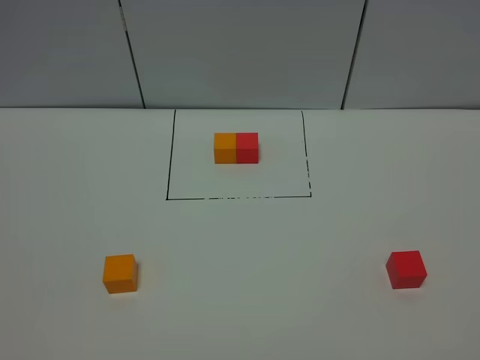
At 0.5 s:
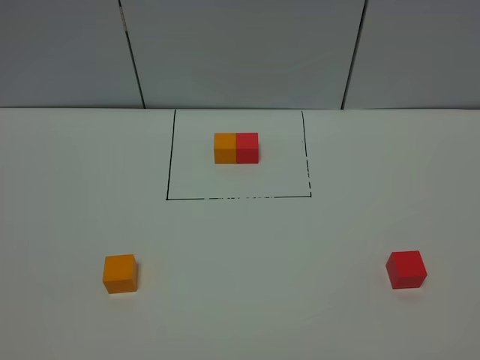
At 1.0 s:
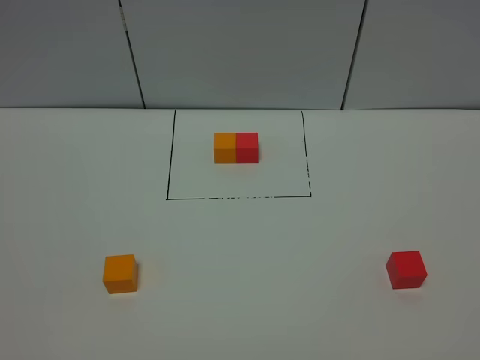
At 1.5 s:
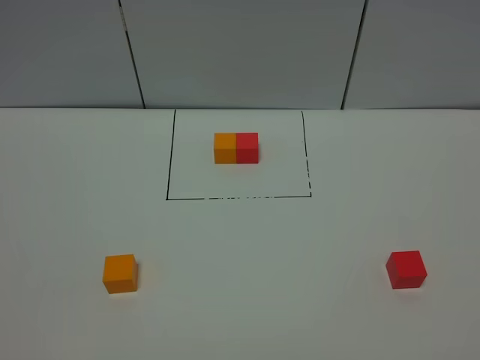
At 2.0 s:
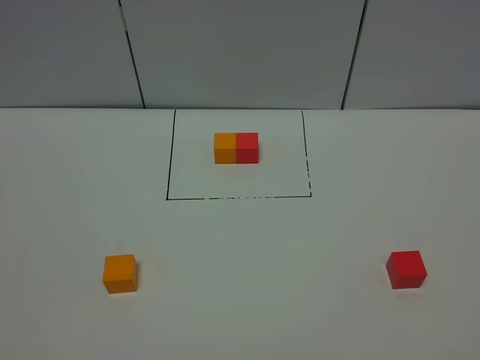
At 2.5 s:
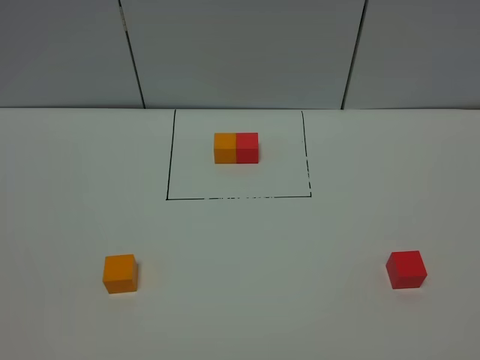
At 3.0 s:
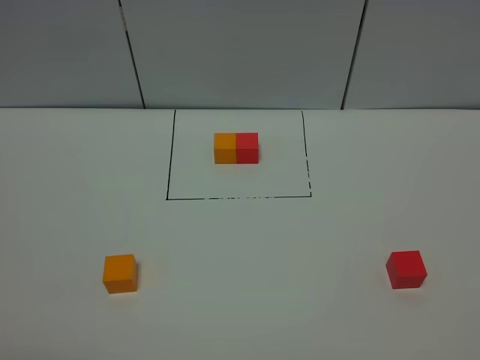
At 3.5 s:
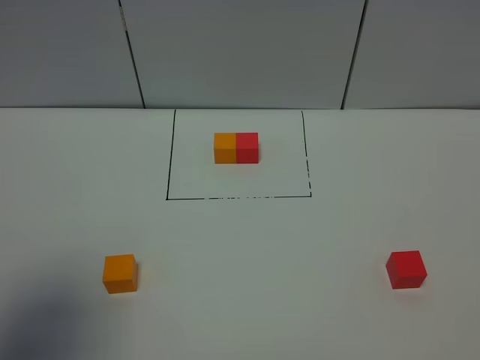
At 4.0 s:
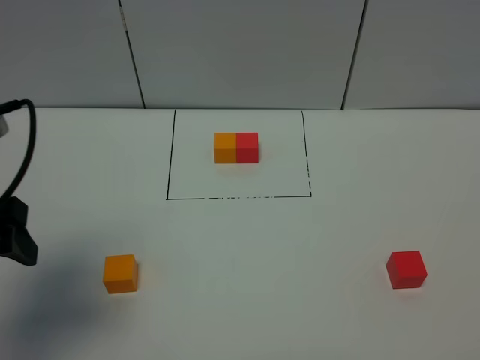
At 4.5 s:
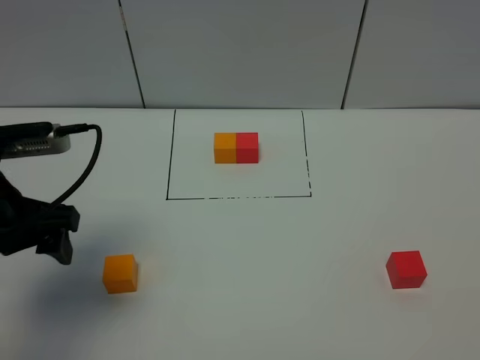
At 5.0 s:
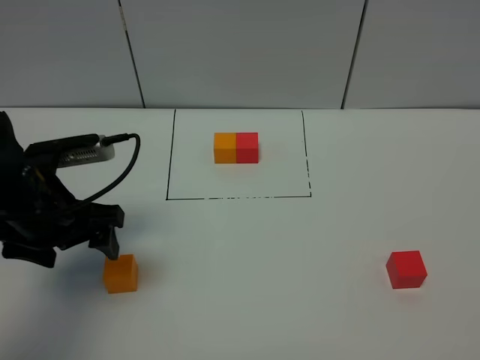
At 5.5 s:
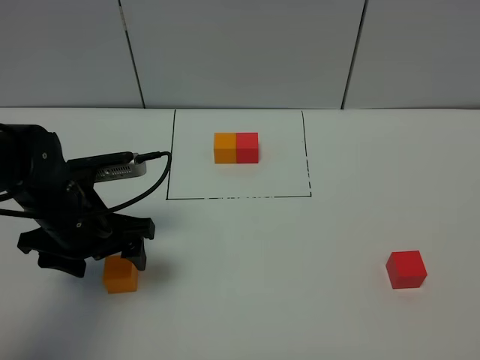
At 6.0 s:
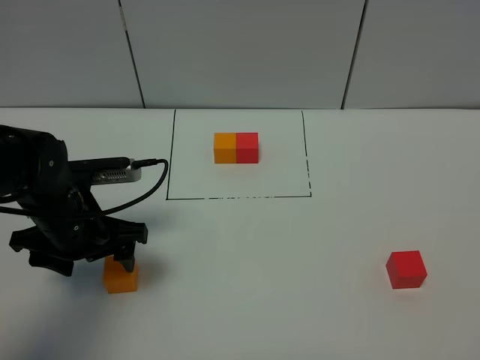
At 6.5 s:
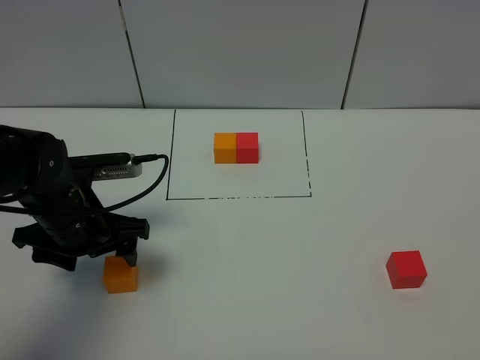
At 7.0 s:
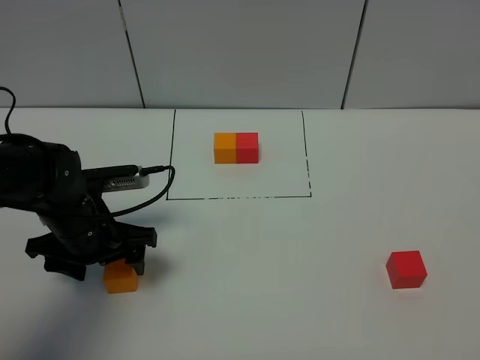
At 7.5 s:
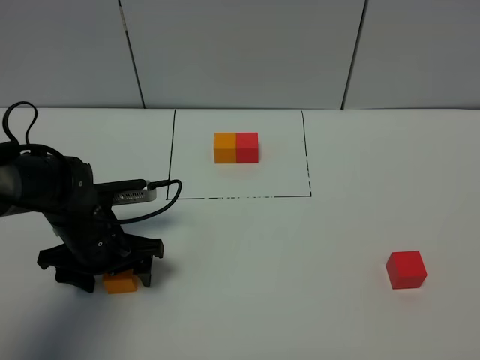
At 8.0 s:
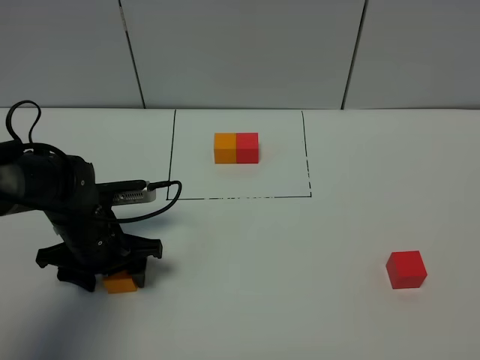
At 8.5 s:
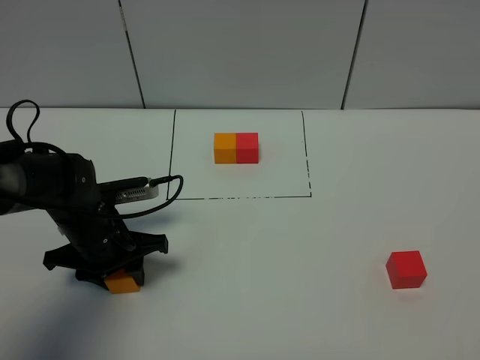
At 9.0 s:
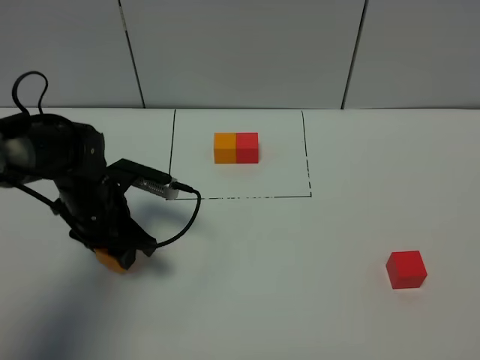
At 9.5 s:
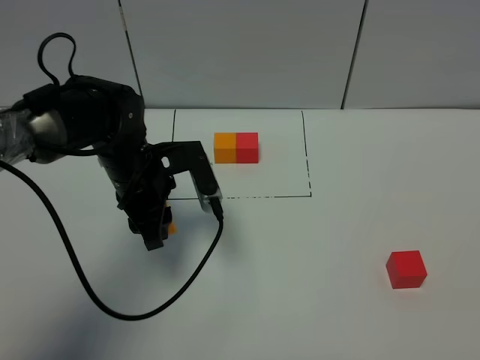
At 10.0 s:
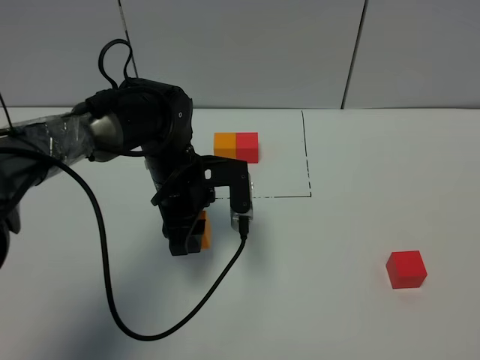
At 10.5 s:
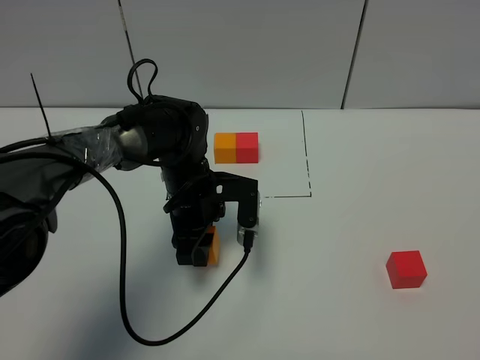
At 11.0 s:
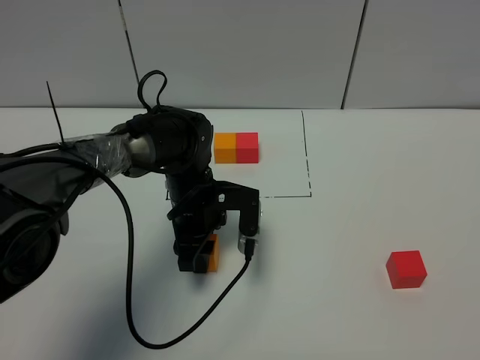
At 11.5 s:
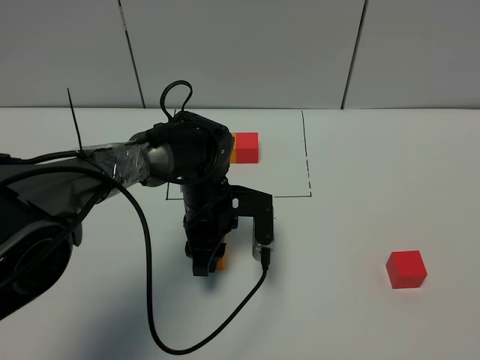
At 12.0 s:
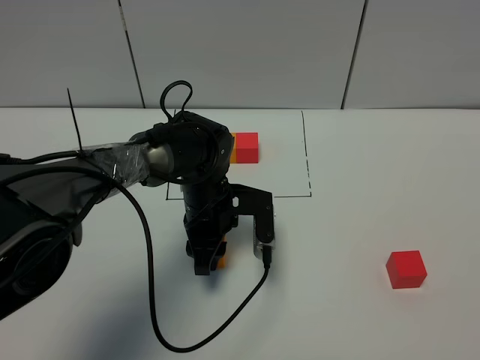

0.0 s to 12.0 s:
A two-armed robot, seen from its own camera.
Task of the whole recording: According to the building block template in front, assemble the scattered blocks together.
0.0 to 2.0 s: Neither gripper changes place.
2.0 to 4.0 s: The left gripper shifts about 25 cm forward.
4.0 to 6.0 s: The left gripper moves downward, forward and to the right, some 20 cm.
6.0 to 8.0 s: The left gripper moves downward, about 5 cm.
8.0 to 10.0 s: The left gripper heads to the right, forward and upward, covering roughly 15 cm, and closes up.
10.0 to 12.0 s: The left gripper changes place by some 5 cm.

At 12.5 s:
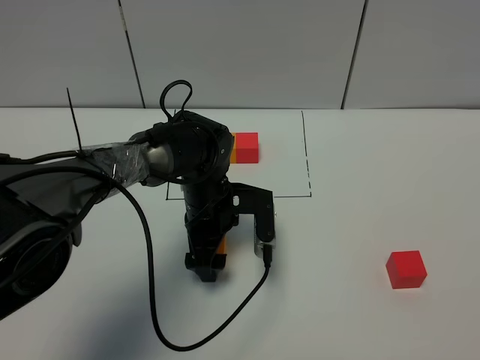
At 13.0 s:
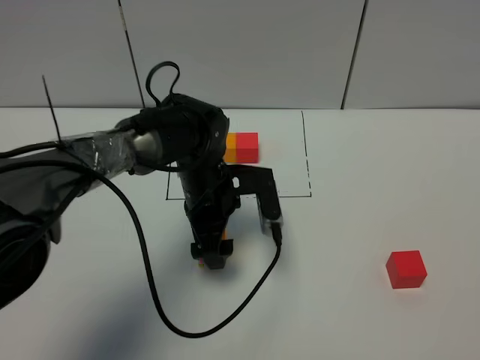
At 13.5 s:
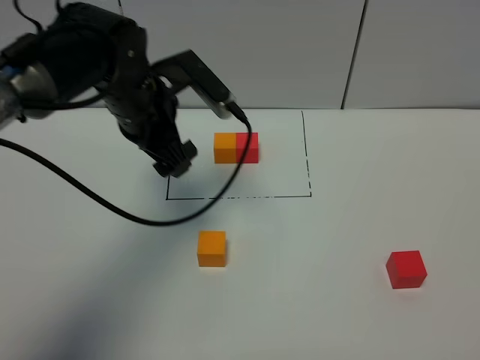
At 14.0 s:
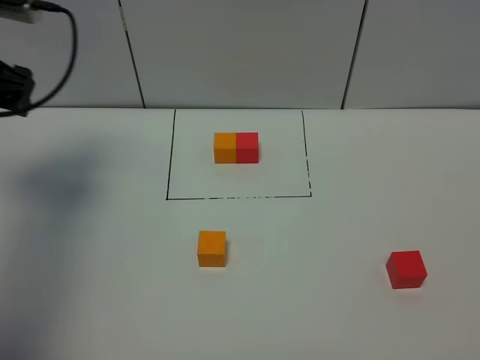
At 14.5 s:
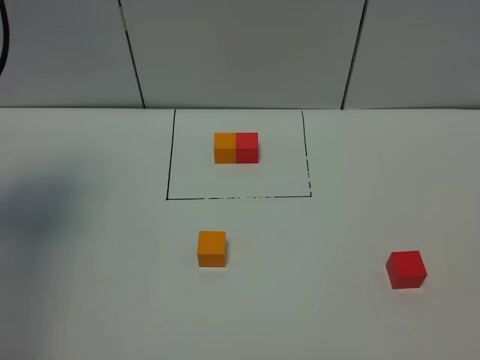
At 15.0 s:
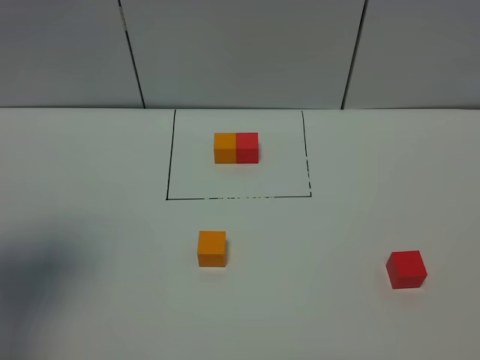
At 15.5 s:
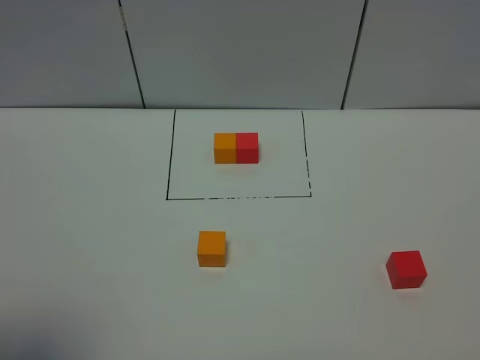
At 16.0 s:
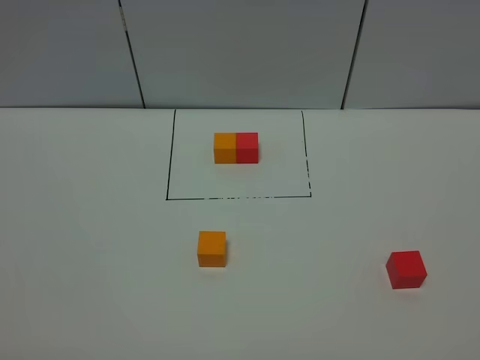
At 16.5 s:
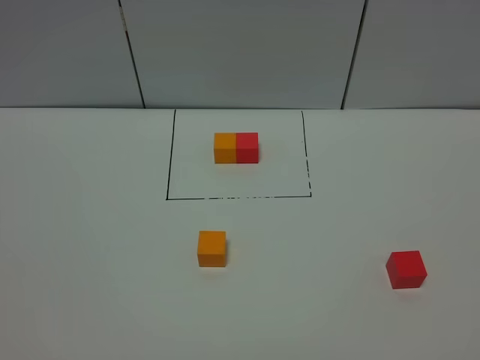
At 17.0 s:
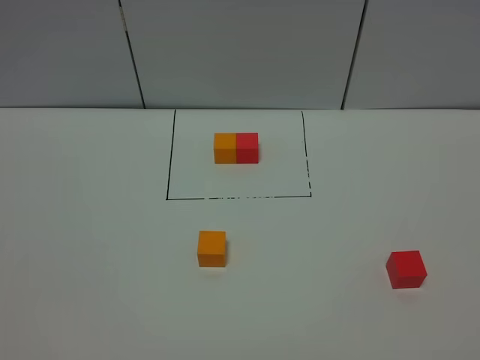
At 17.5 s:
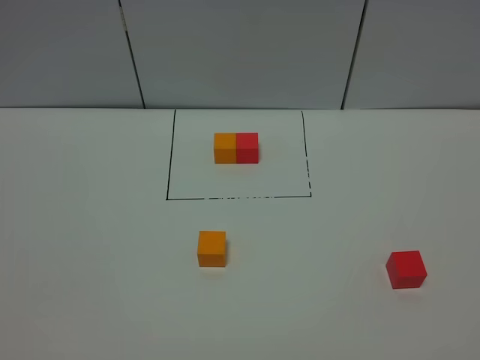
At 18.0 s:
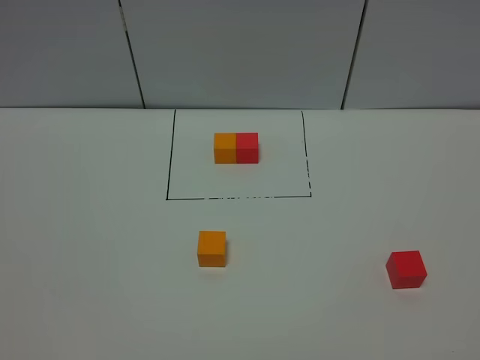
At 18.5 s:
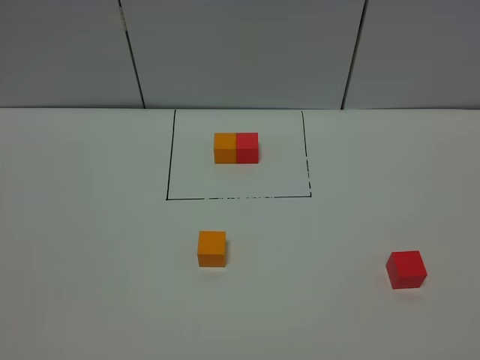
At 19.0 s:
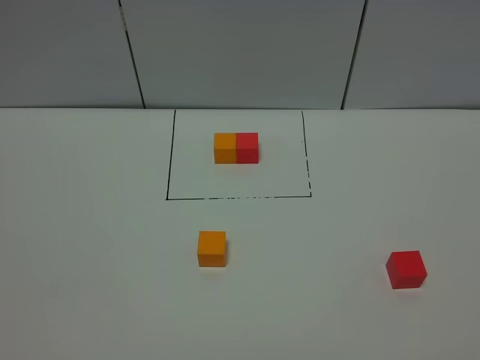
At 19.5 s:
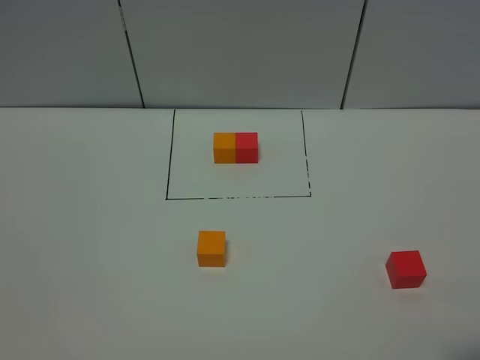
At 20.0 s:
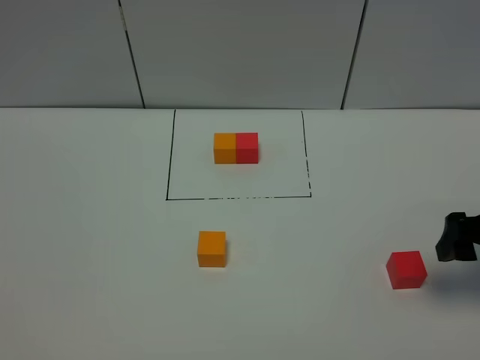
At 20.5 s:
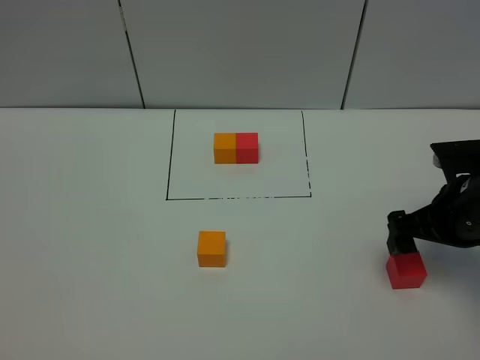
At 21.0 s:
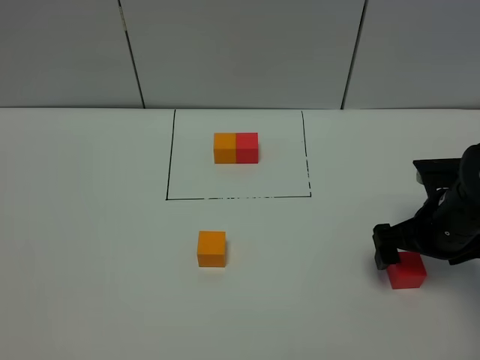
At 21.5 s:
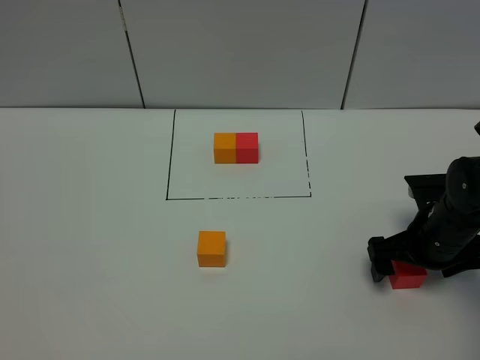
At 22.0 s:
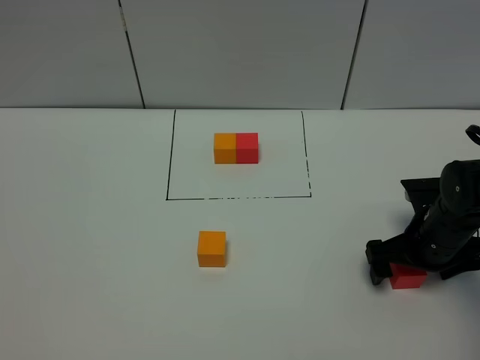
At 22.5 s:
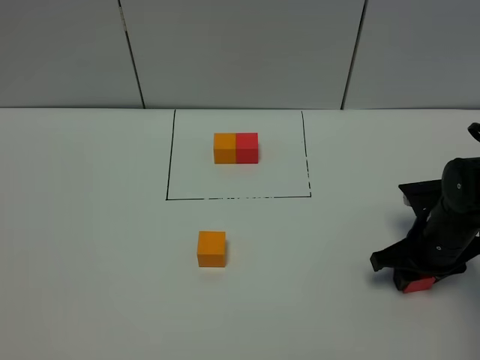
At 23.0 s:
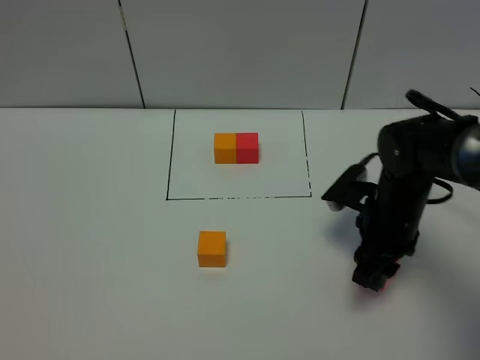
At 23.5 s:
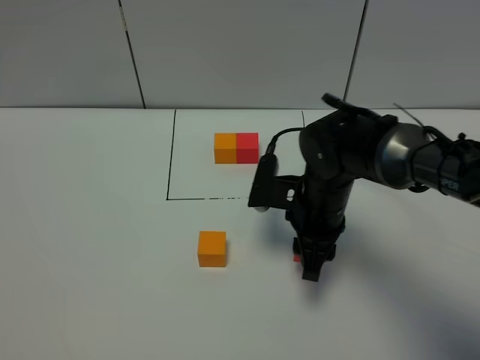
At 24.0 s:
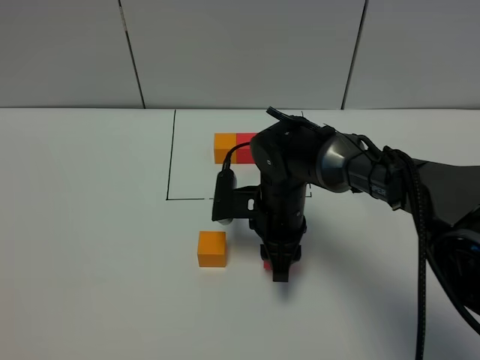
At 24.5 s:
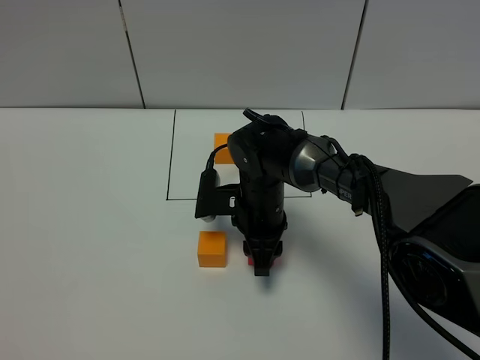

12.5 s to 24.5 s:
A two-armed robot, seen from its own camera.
Task of the whole recording: According to the building block template in front, assemble the scattered blocks together.
12.5 to 14.5 s: The left gripper moves to the left and upward, about 40 cm.
14.5 to 16.5 s: The left gripper shifts some 30 cm backward.
18.5 to 20.5 s: The right gripper heads forward, covering some 30 cm, and opens up.
20.5 to 22.5 s: The right gripper goes approximately 10 cm downward, and closes.
22.5 to 24.5 s: The right gripper shifts approximately 25 cm to the left.

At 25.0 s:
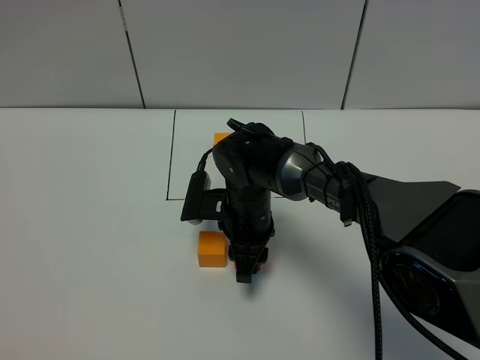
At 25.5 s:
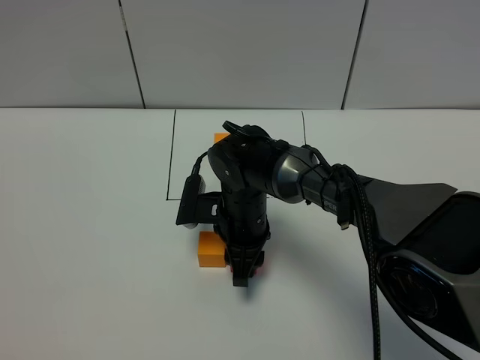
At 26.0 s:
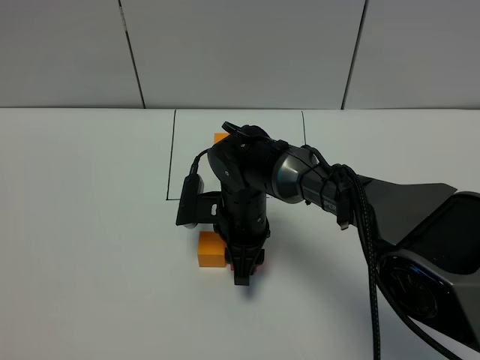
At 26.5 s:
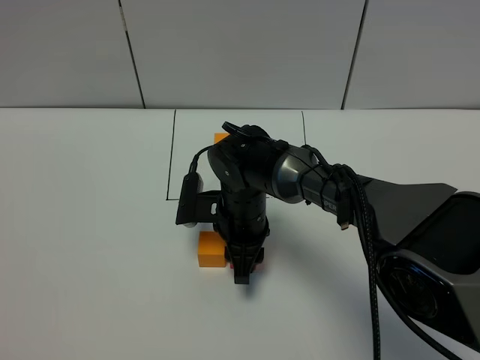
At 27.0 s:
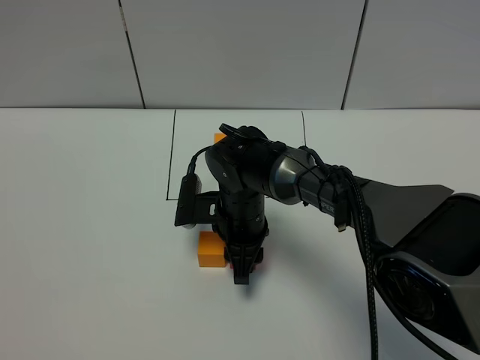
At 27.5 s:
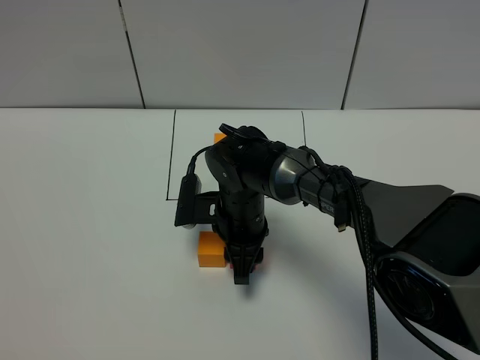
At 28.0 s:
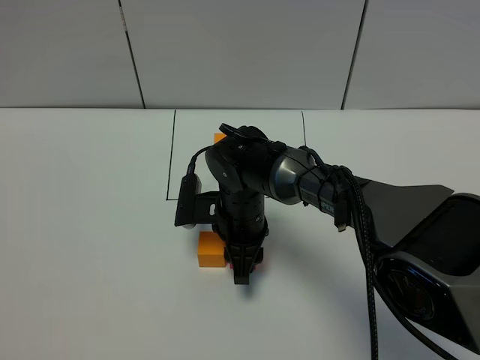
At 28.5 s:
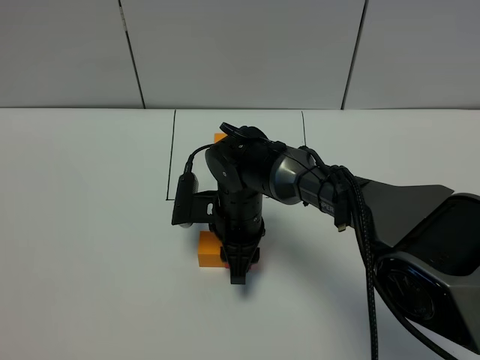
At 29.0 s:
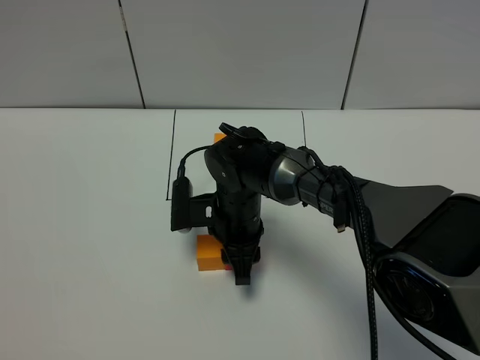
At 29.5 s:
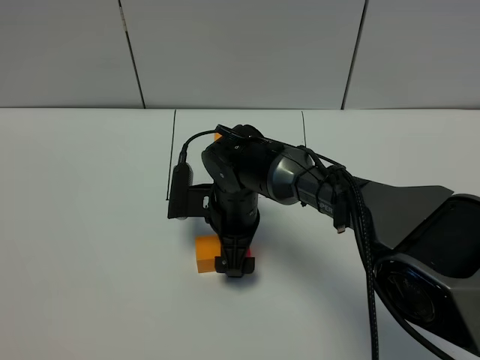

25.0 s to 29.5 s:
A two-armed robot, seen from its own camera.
Task of the whole recording: According to the building block template in front, assemble the scattered blocks together.
25.0 to 27.0 s: Both grippers stay put.
27.0 to 29.5 s: The right gripper opens.
